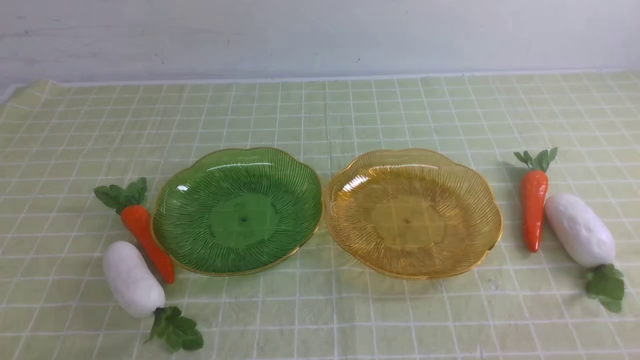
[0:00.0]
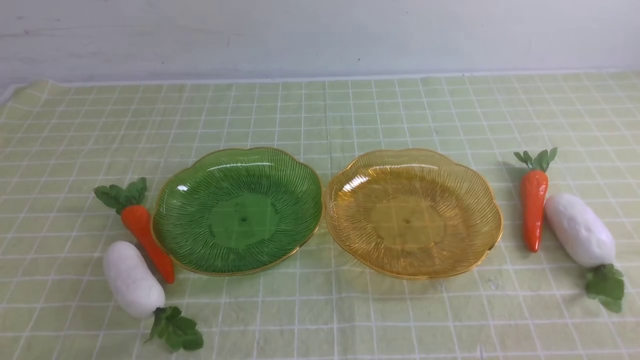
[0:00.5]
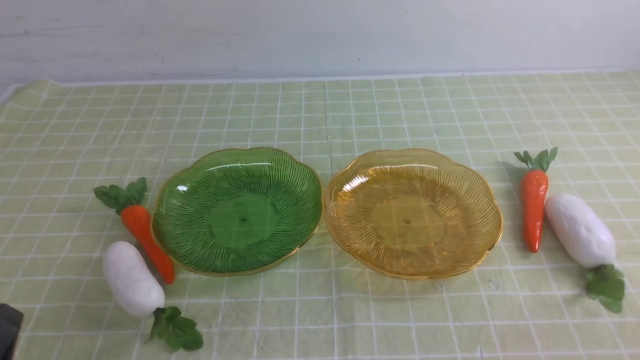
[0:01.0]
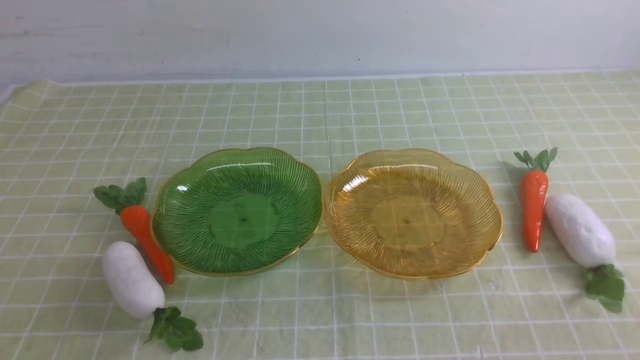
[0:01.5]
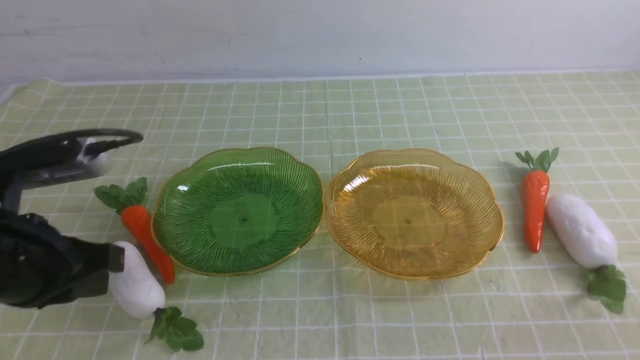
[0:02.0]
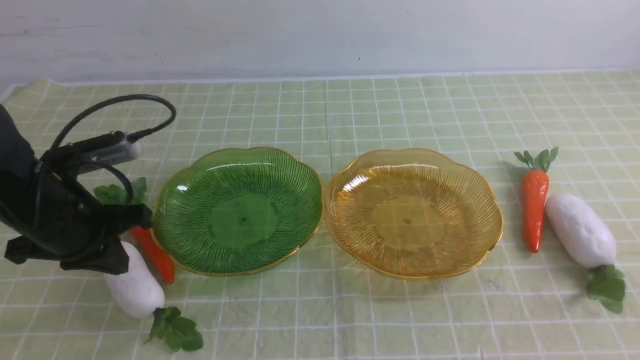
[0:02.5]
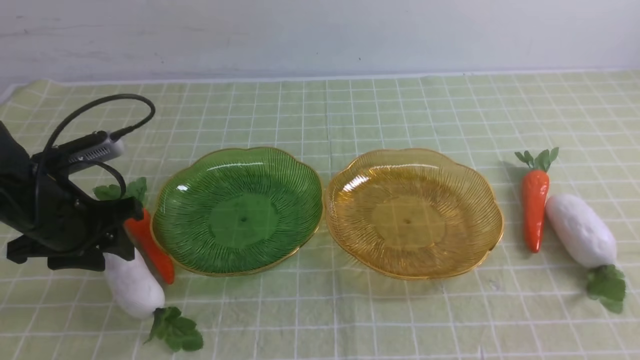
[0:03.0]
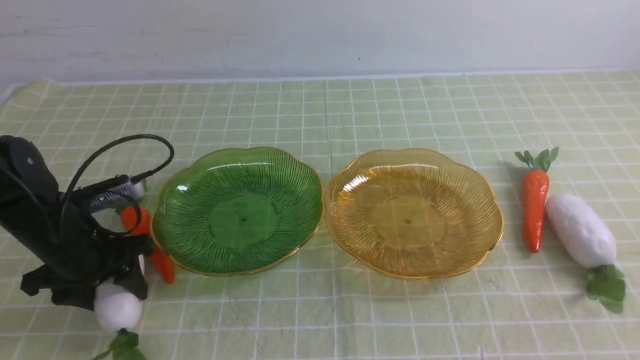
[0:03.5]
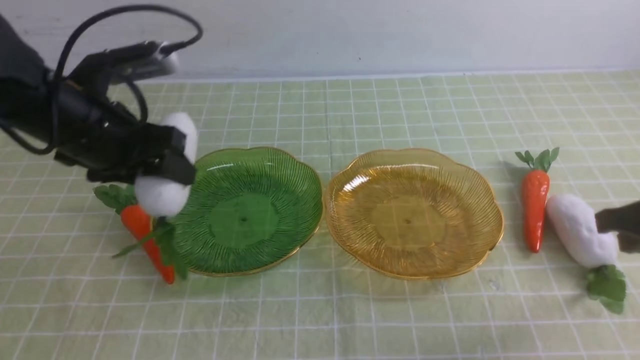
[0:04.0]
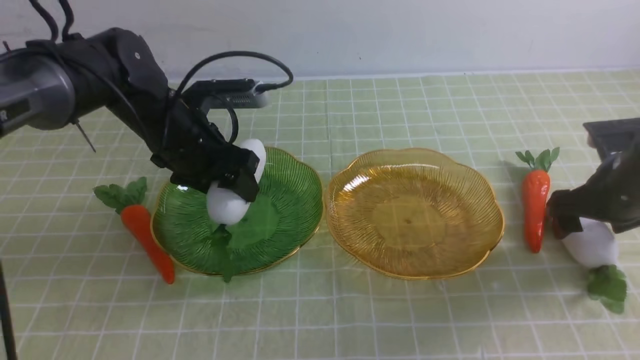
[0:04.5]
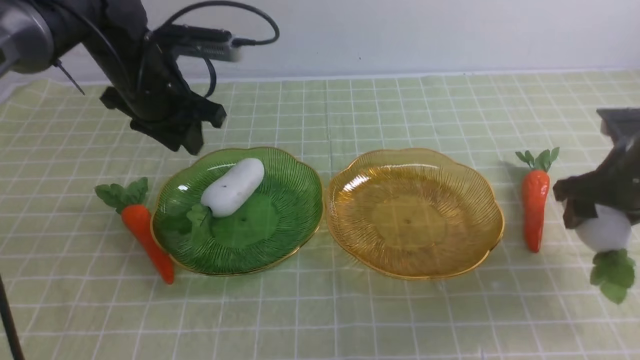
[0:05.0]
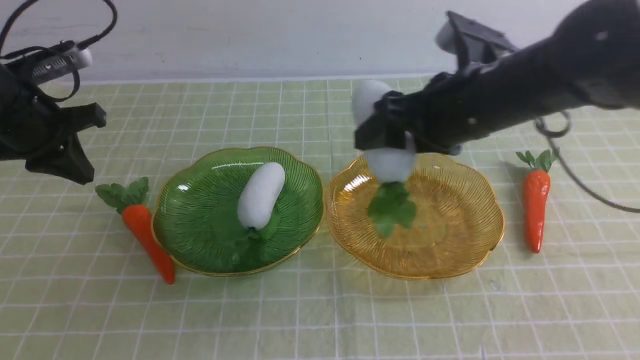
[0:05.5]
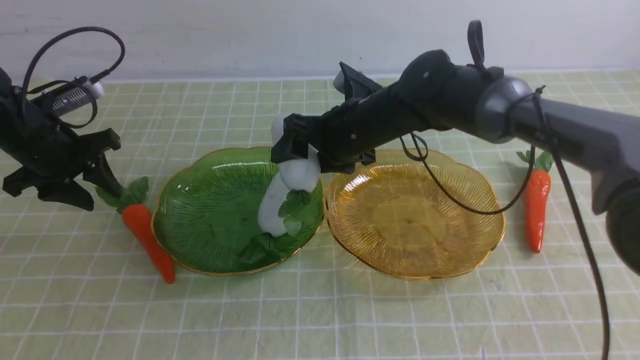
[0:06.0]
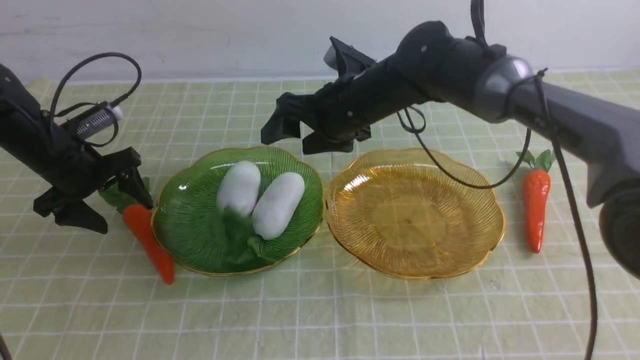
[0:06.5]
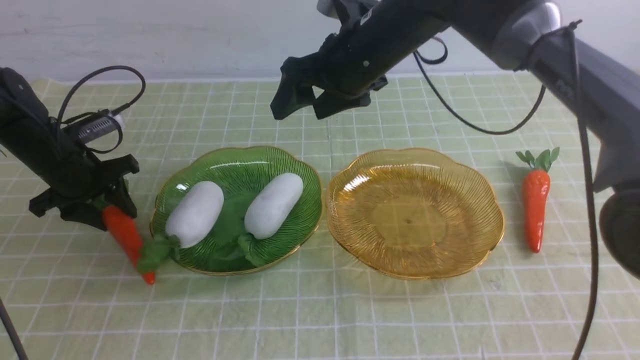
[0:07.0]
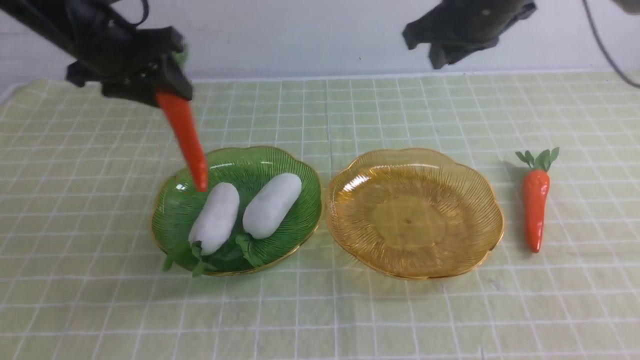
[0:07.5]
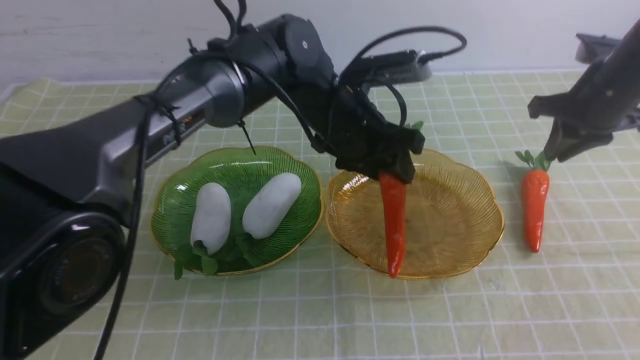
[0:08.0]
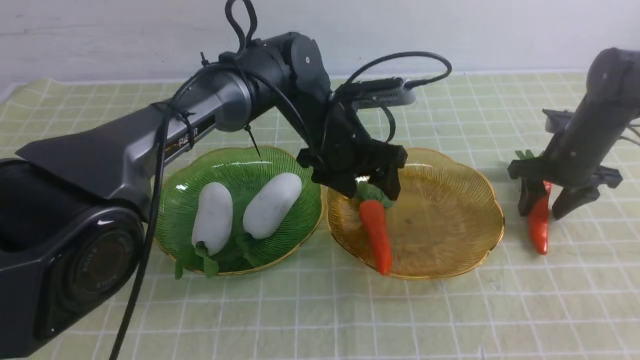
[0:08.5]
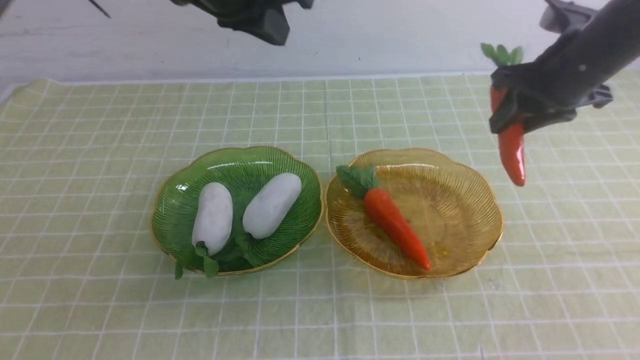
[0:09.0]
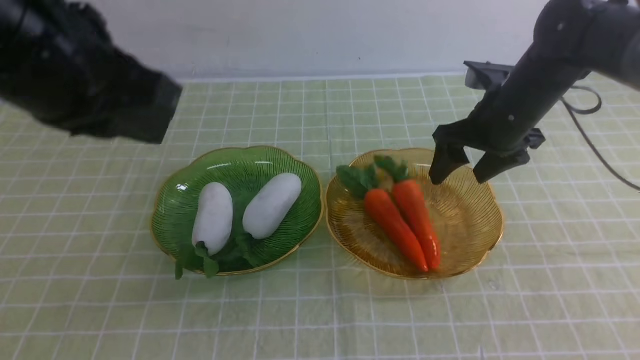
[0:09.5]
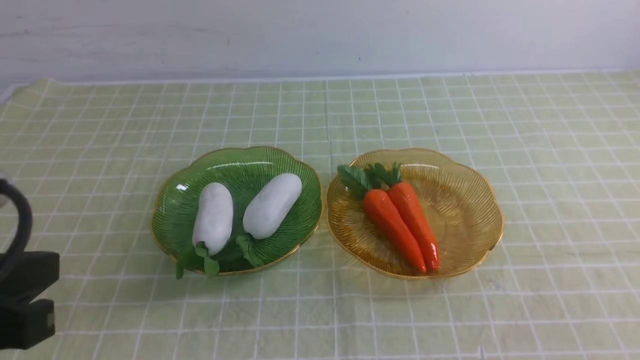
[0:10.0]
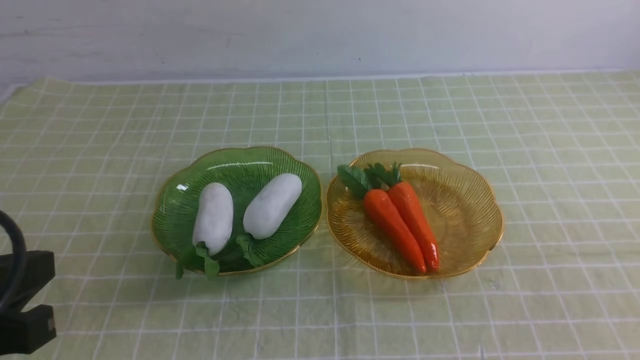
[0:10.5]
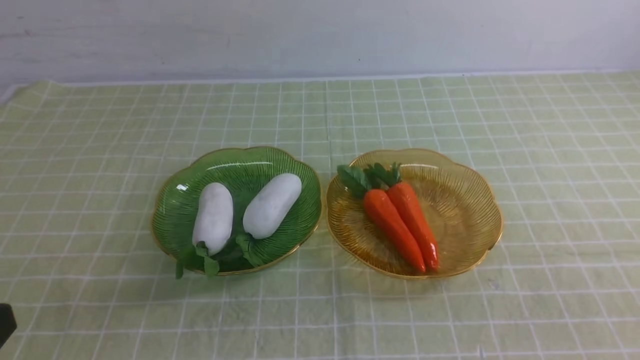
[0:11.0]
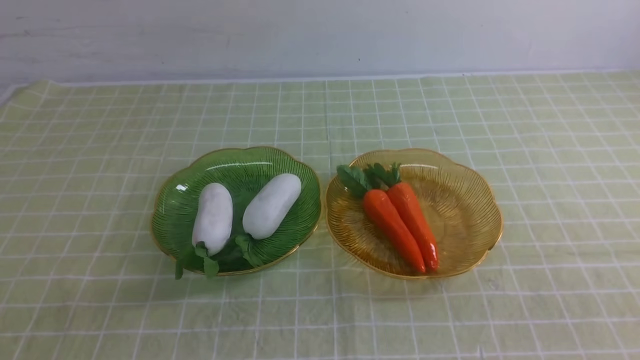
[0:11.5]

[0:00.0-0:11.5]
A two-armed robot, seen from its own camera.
Step, 0:00.0 to 0:05.0: use the left arm to grab a radish and put it into the left plate.
Step, 0:05.5 to 0:07.0: use the right arm to grab a radish and put it into the left plate.
Step, 0:07.5 to 0:08.5: use the left arm to grab a carrot and put it into the right plate.
Step, 0:09.5 to 0:10.5: use the right arm to grab a carrot and put it into the right plate.
0:00.0 to 0:02.0: The left gripper is displaced forward and upward by approximately 20 cm.
0:02.0 to 0:04.0: The left gripper travels forward by about 15 cm, and opens its fingers. The right gripper goes about 20 cm forward.
0:04.0 to 0:06.0: The right gripper goes approximately 30 cm to the left and forward, and opens; the left gripper goes approximately 15 cm to the left, forward and downward, and closes, then opens again.
0:06.0 to 0:07.5: The two grippers go roughly 20 cm to the right and upward. The right gripper closes.
0:07.5 to 0:09.5: The right gripper heads downward, covering about 5 cm, and opens up. Meanwhile the left gripper travels backward and upward by about 25 cm, and closes.
0:09.5 to 0:11.5: The right gripper moves backward, roughly 40 cm, and closes up. Meanwhile the left gripper travels backward, downward and to the left by approximately 25 cm.
